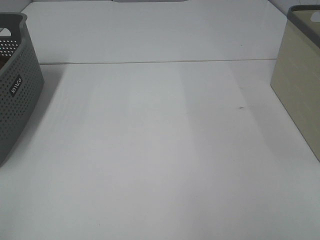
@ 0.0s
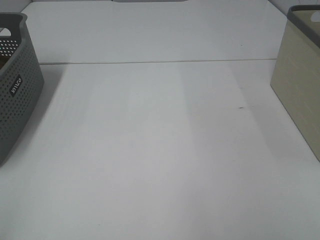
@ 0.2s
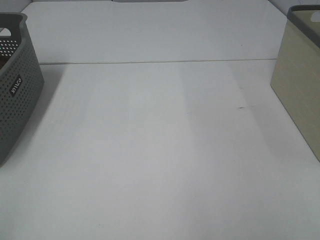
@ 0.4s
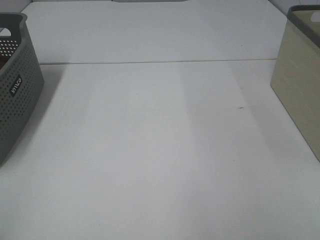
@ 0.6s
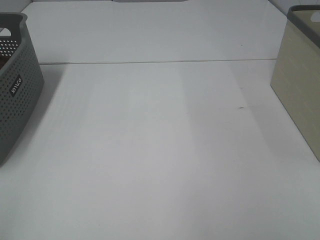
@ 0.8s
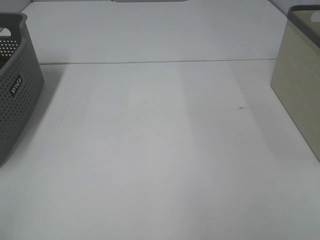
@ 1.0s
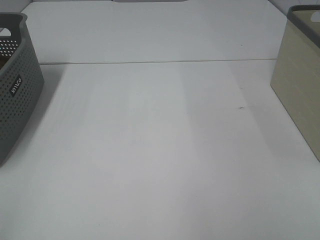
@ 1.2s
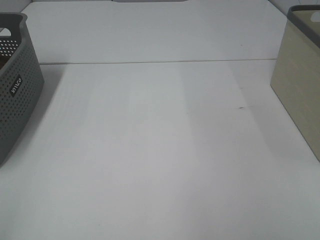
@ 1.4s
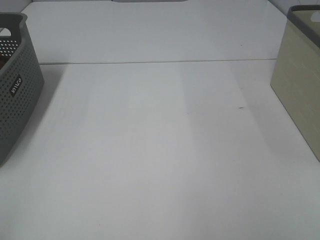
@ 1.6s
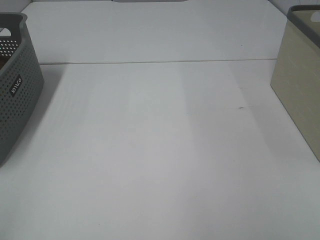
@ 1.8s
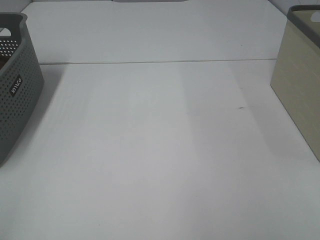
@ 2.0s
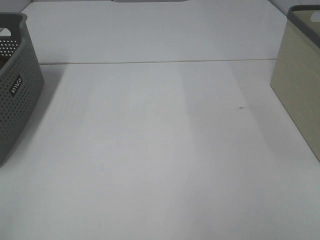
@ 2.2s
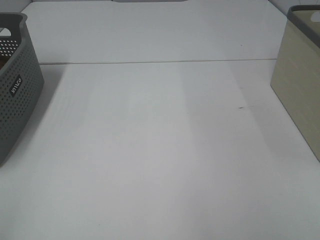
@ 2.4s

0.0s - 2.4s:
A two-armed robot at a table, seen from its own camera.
0.0s - 2.4s: Both grippers stay put.

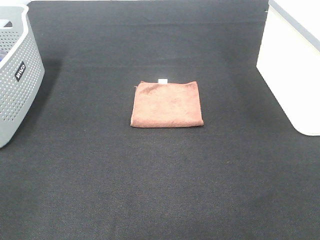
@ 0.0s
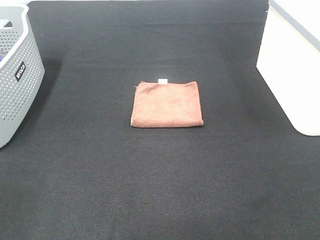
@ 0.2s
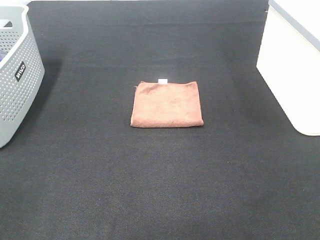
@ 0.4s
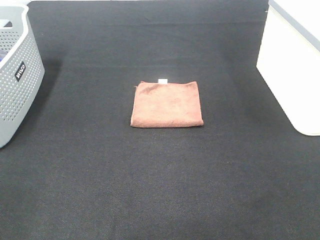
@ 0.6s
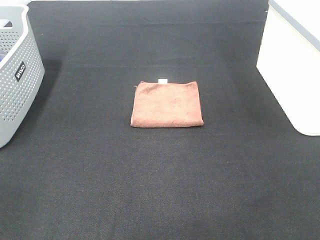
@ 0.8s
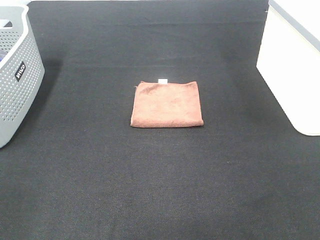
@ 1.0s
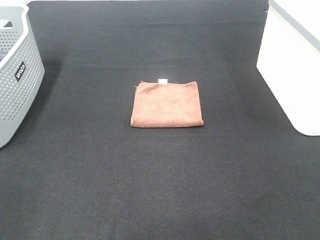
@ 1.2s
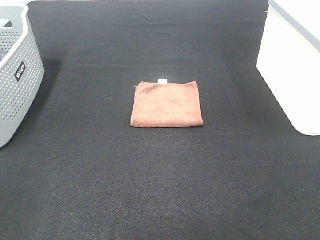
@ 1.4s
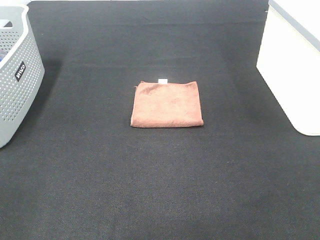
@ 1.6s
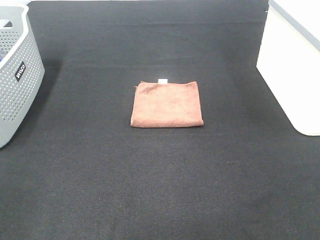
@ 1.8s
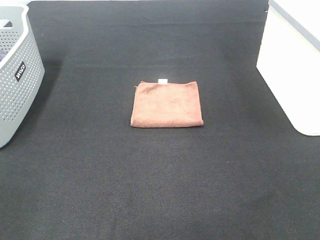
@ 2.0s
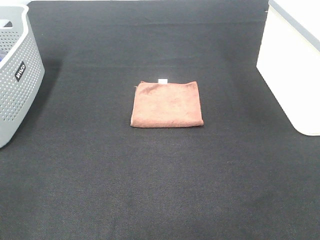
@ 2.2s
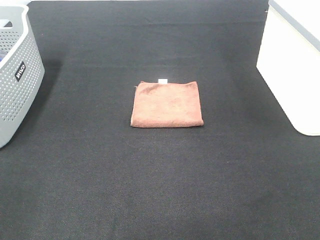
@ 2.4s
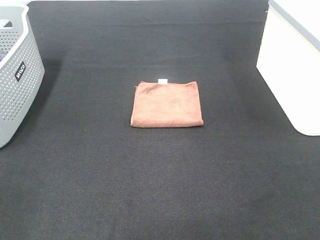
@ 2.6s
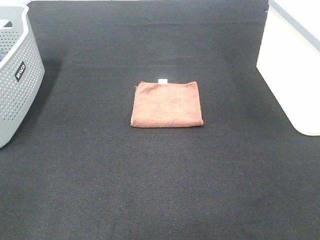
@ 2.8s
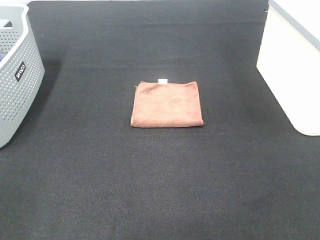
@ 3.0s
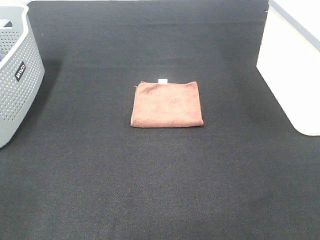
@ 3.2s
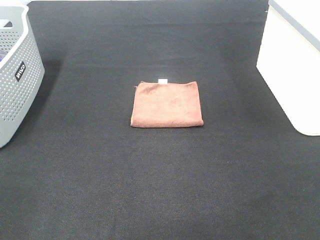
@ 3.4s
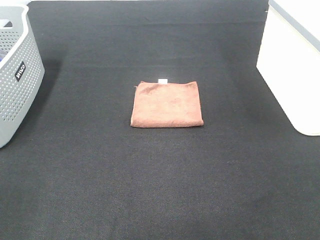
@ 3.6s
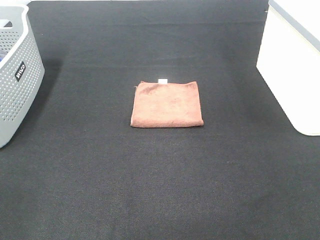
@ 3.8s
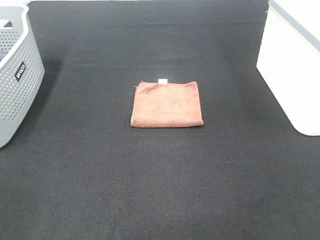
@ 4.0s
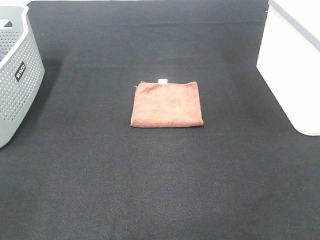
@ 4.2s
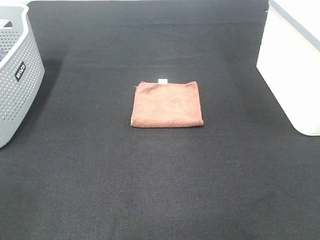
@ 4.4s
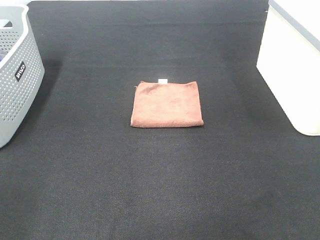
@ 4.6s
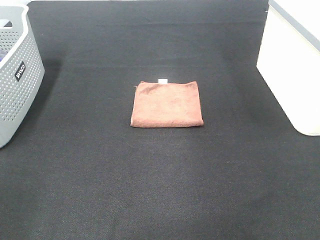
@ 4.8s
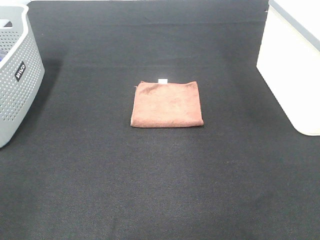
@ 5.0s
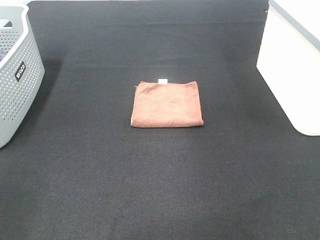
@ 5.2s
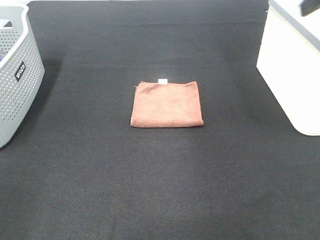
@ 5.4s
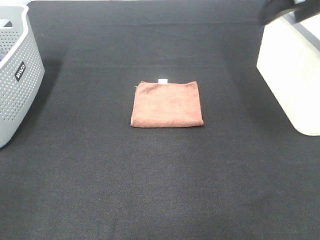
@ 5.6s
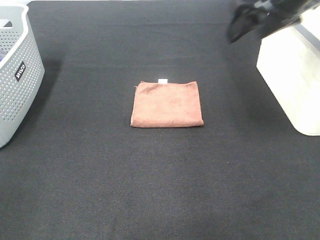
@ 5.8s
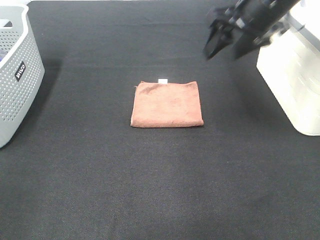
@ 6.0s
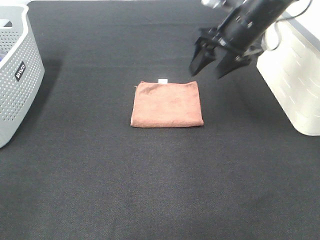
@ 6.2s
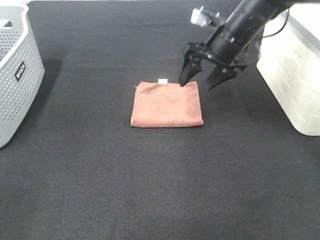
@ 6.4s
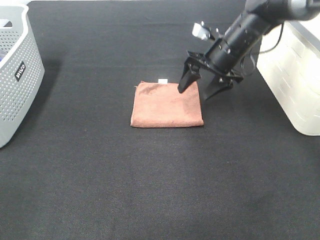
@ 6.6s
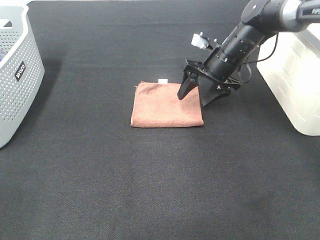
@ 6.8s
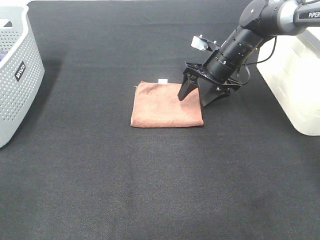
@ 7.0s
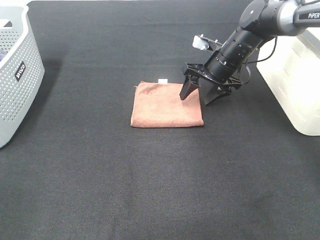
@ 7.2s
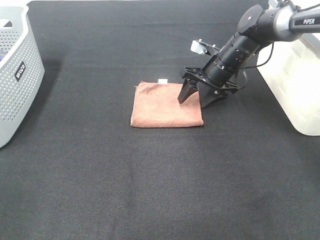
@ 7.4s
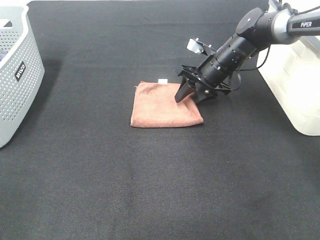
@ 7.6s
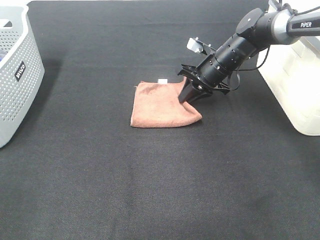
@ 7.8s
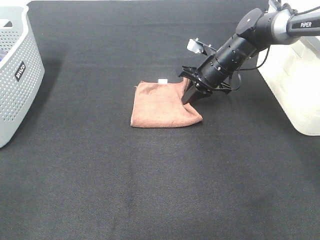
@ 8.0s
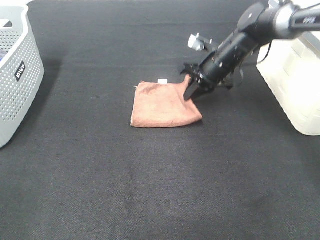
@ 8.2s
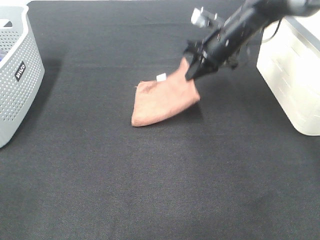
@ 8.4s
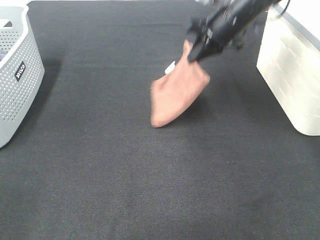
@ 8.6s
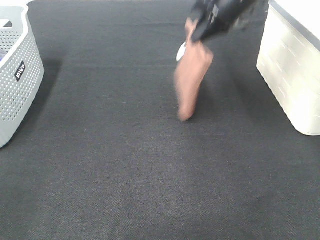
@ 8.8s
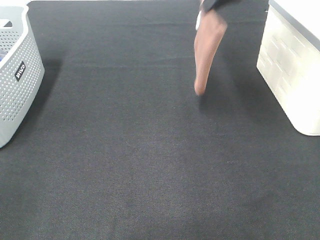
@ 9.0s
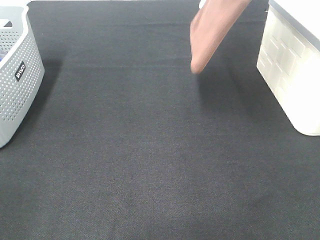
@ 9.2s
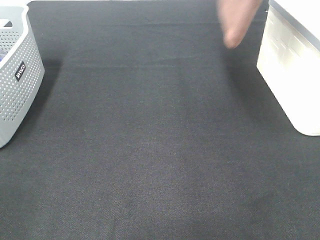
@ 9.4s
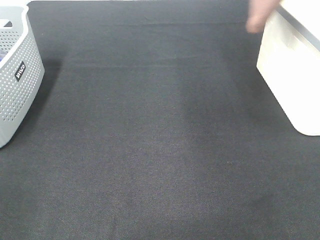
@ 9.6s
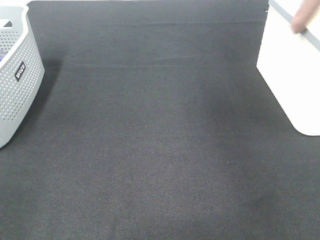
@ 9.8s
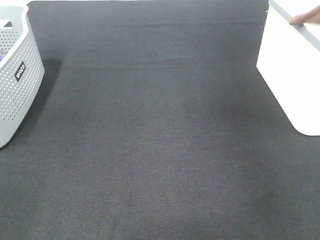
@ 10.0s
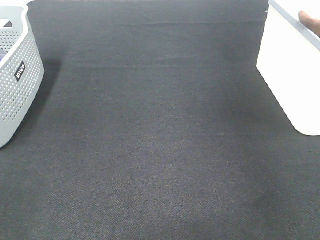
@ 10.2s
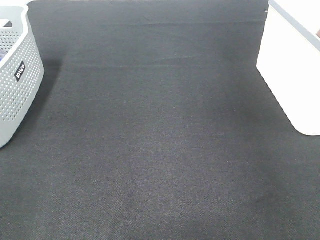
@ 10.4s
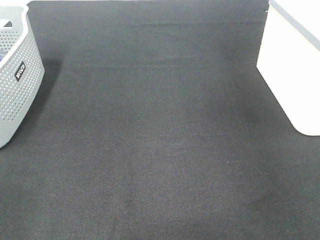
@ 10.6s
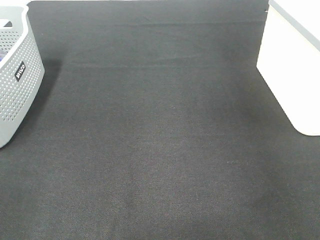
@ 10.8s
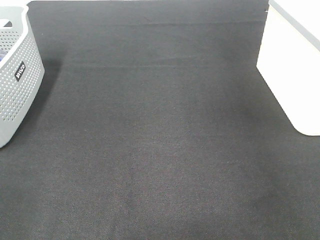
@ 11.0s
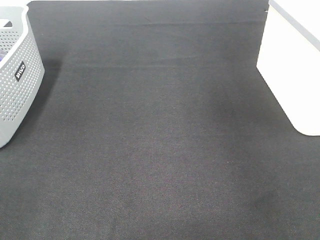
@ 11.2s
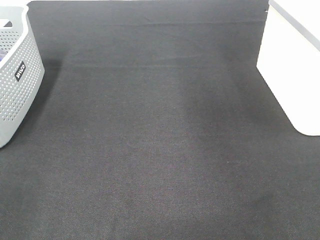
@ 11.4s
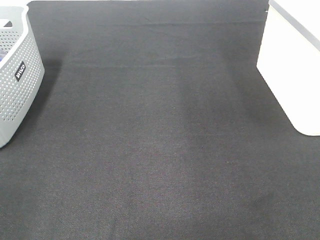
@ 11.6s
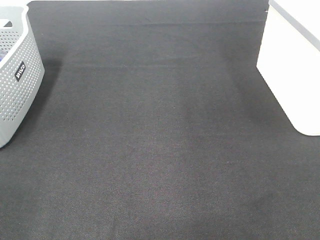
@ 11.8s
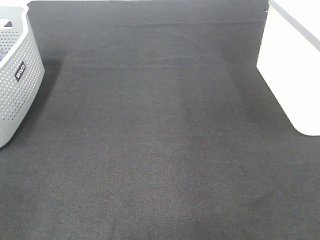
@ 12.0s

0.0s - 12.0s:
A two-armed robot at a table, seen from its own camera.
Step, 0.0s - 7.8s: Right hand: grab the folded brown towel.
Step, 8.0s - 10.8s: Right hand: place the brown towel in right basket.
0.0s - 3.0s: Neither gripper changes place.
4.4s - 6.0s: The right gripper shifts approximately 30 cm forward and to the left.
6.0s - 7.6s: The right gripper heads downward and forward, covering some 20 cm.
7.6s - 9.0s: The right gripper heads upward, covering roughly 25 cm, and closes.
9.0s - 10.4s: The right gripper is displaced to the right by some 25 cm.

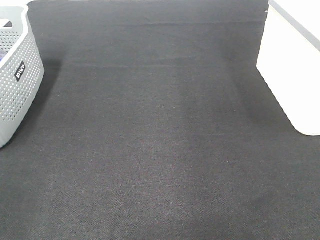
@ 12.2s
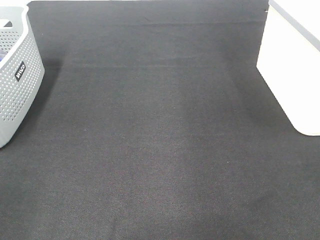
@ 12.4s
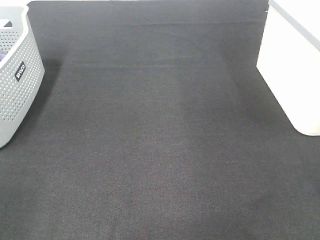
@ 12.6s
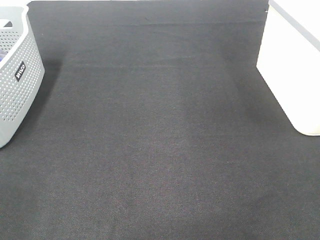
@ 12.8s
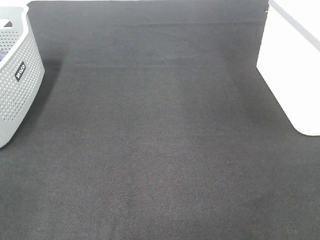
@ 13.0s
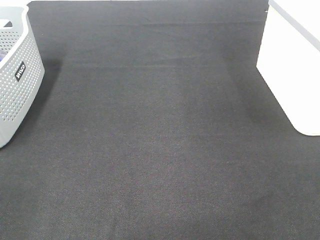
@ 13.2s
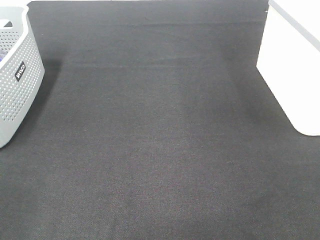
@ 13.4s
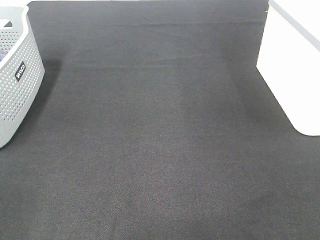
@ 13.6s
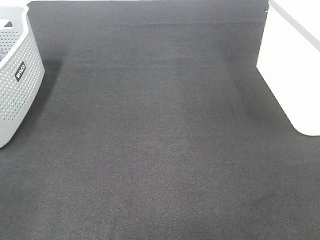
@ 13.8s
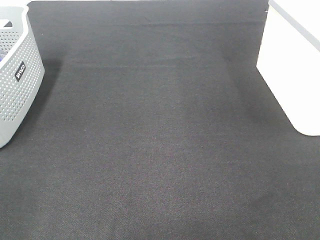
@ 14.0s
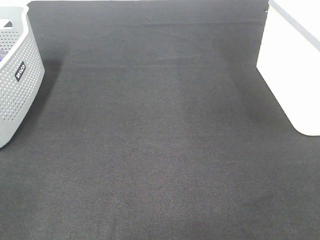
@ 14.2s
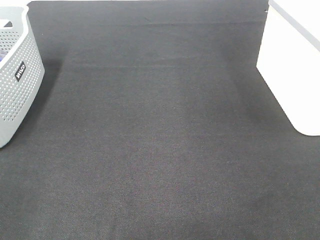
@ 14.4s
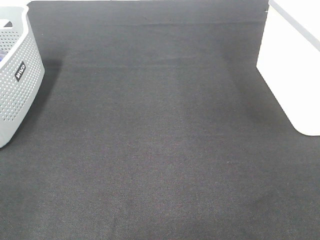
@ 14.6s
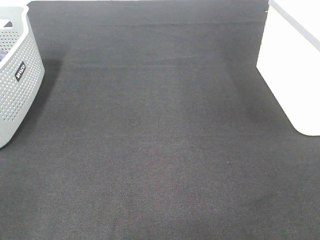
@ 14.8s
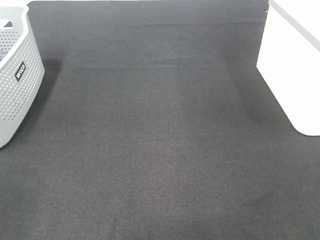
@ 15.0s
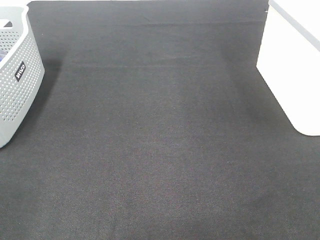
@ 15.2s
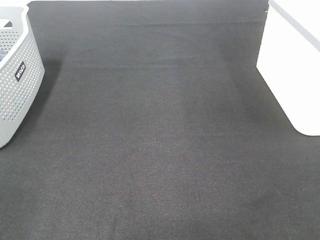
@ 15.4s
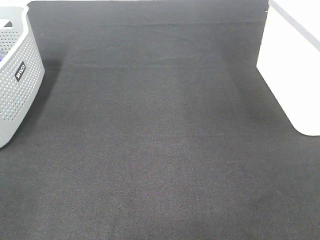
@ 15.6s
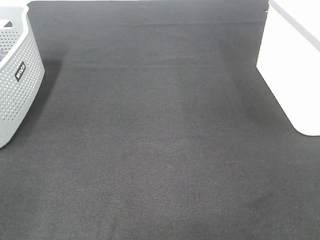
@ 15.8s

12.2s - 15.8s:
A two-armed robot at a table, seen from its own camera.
14.0s - 15.8s: The two grippers keep their place.

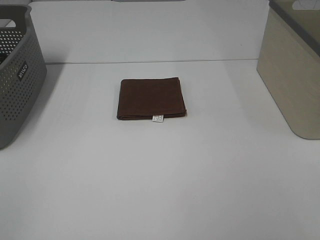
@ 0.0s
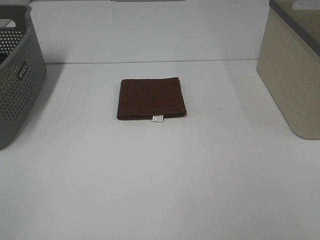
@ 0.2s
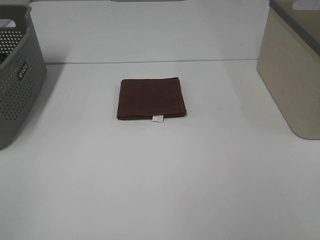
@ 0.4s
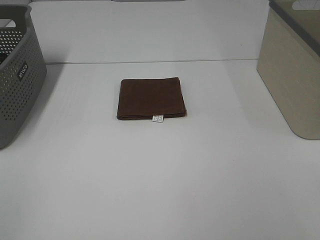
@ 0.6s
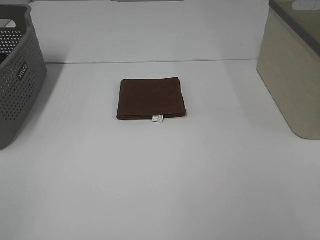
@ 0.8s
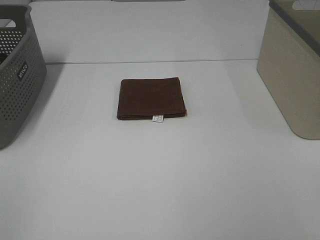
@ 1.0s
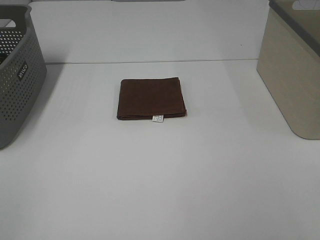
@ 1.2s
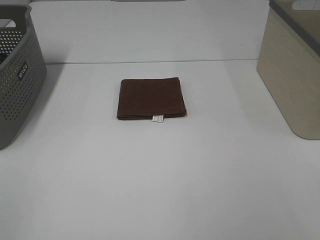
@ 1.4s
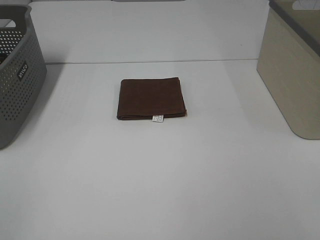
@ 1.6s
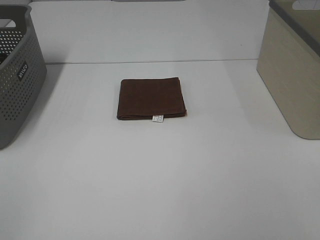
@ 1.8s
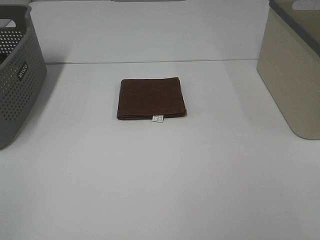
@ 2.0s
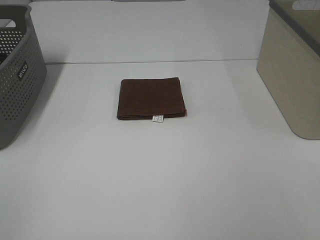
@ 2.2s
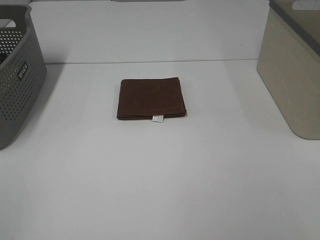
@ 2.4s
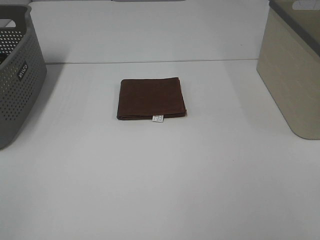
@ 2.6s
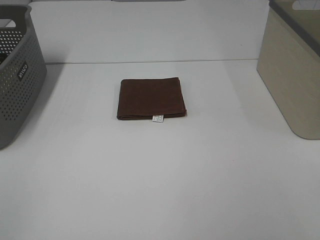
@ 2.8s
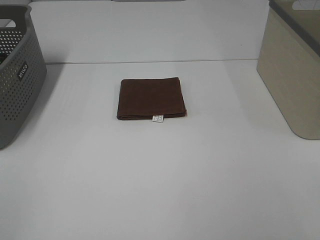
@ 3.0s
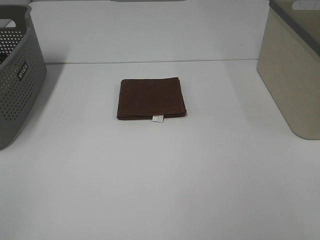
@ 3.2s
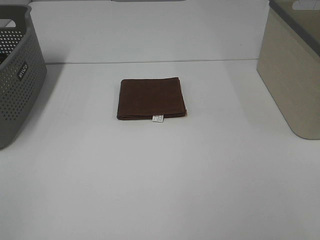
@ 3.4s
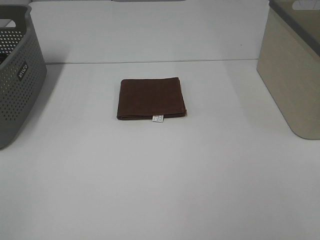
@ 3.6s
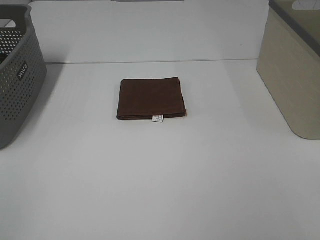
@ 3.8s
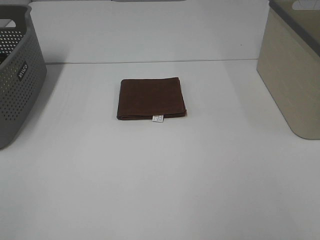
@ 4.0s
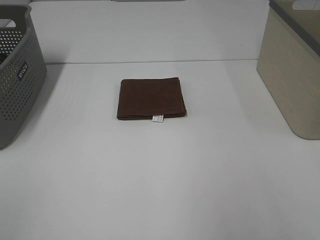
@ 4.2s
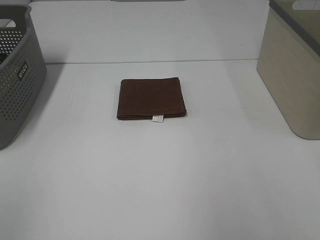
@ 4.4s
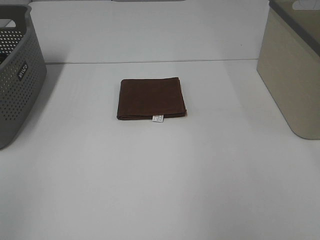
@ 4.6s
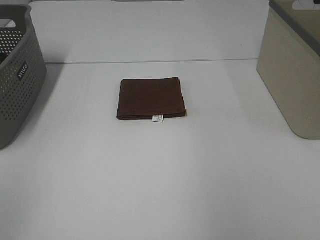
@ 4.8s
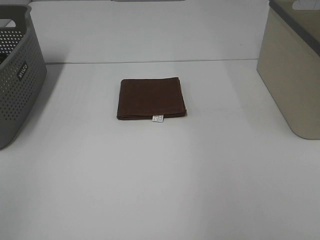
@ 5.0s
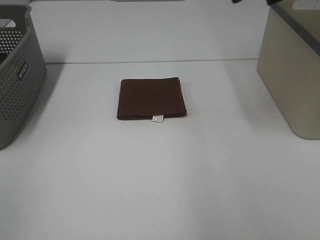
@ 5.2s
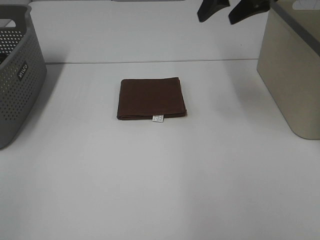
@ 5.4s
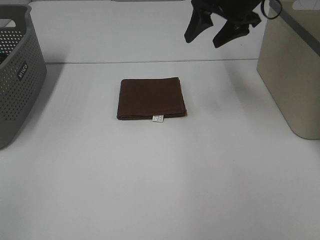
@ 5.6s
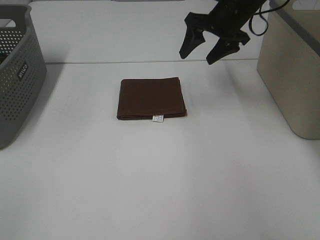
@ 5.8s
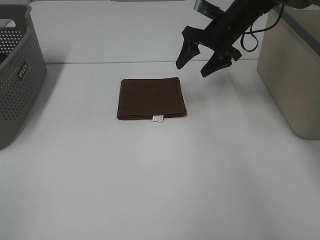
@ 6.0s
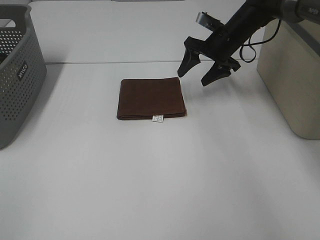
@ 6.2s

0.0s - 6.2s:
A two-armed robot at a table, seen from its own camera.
0.0s - 3.2s: Neither gripper changes place.
4.6s - 6.2s: The right gripper moves forward, downward and to the left, some 40 cm.
